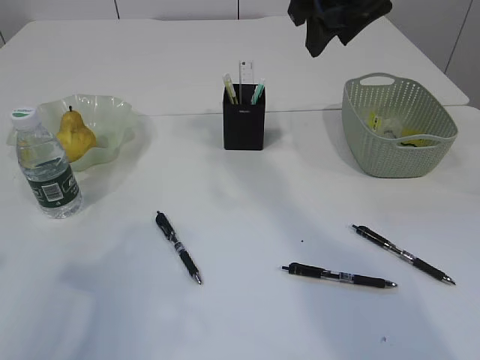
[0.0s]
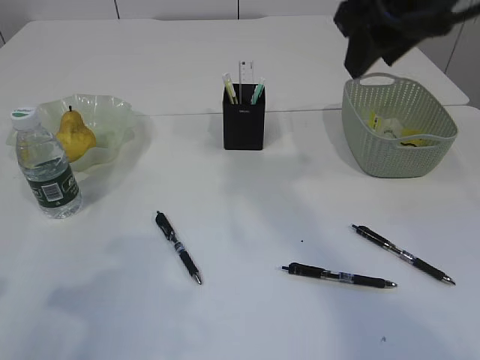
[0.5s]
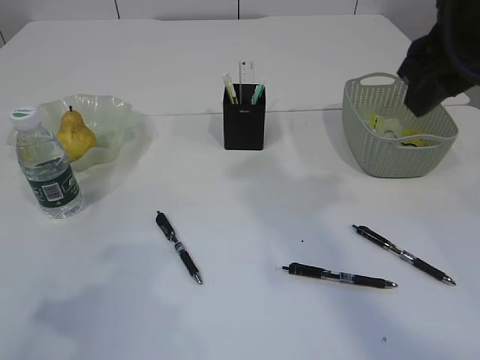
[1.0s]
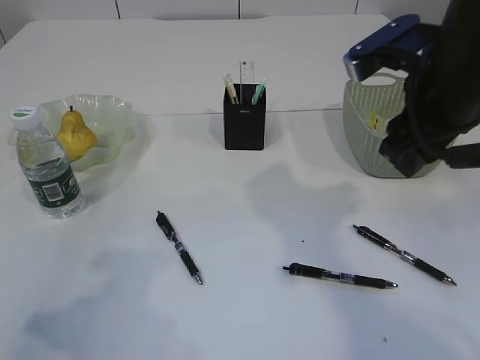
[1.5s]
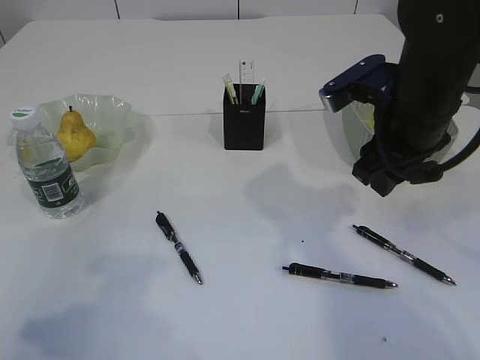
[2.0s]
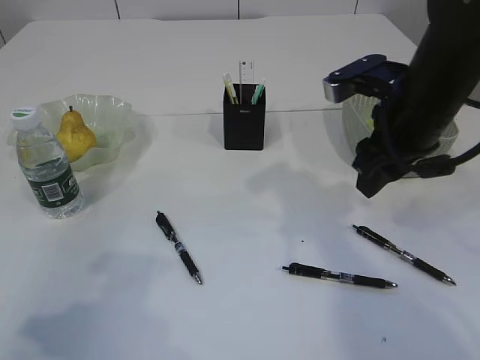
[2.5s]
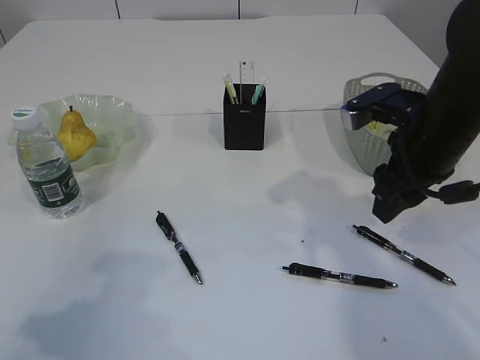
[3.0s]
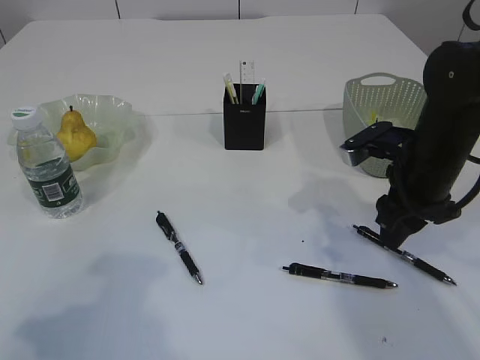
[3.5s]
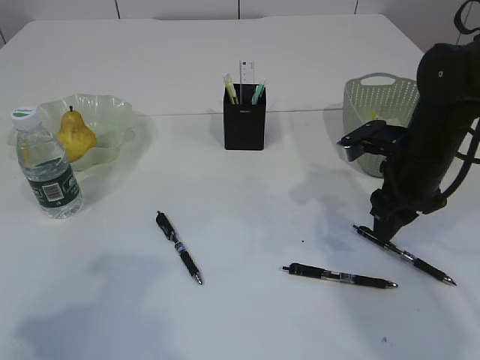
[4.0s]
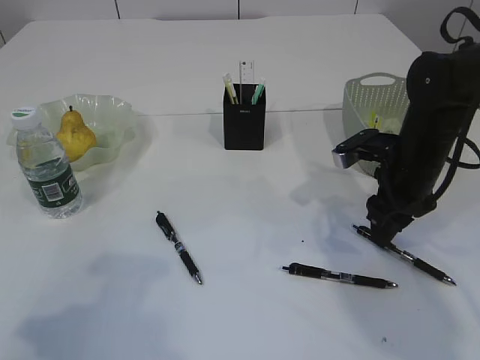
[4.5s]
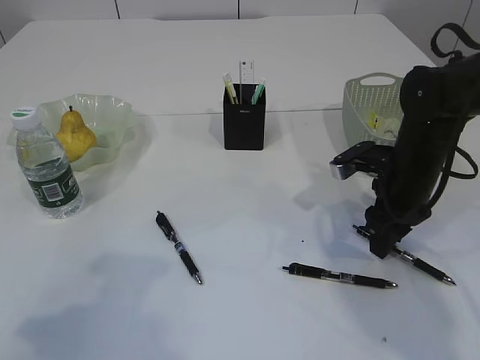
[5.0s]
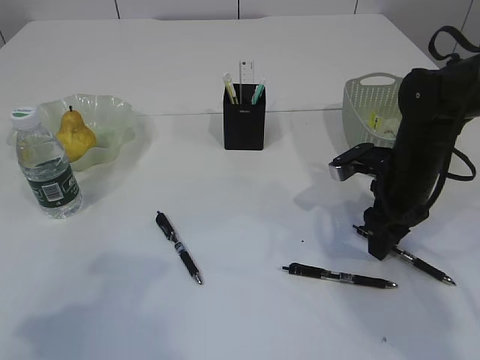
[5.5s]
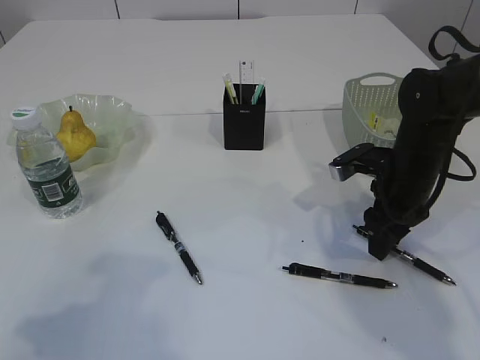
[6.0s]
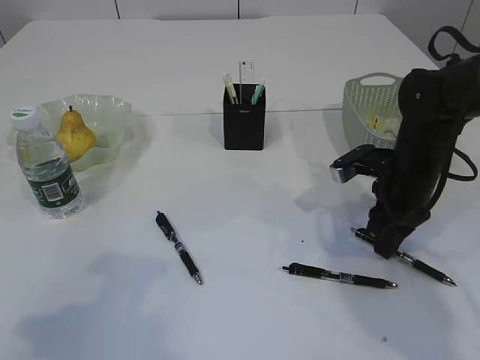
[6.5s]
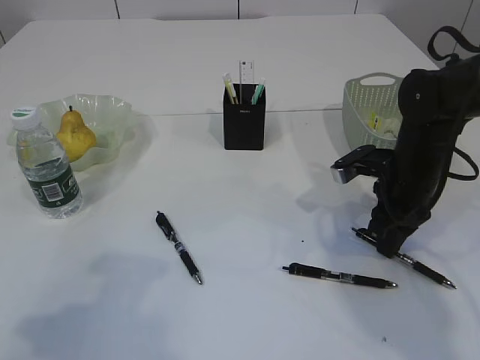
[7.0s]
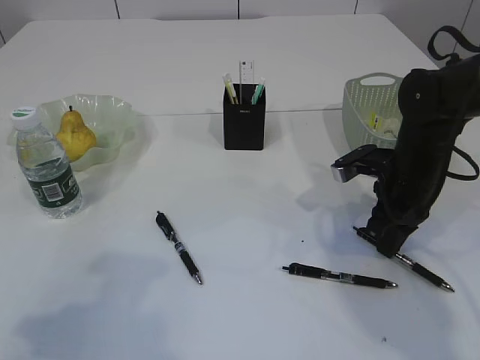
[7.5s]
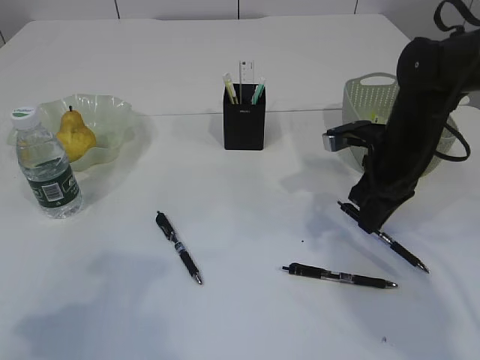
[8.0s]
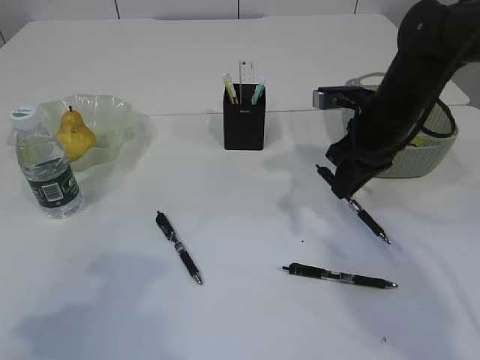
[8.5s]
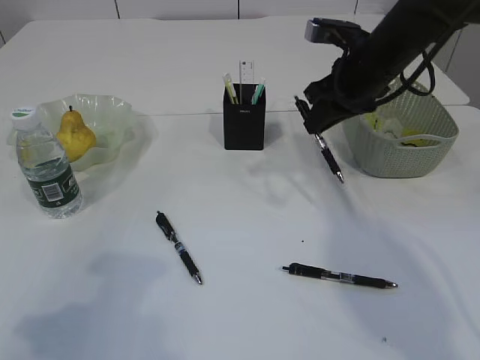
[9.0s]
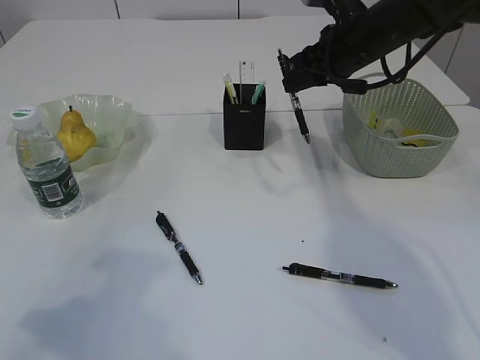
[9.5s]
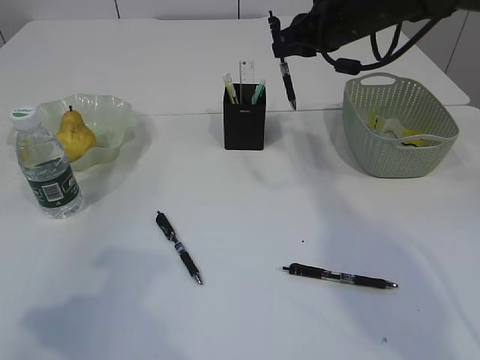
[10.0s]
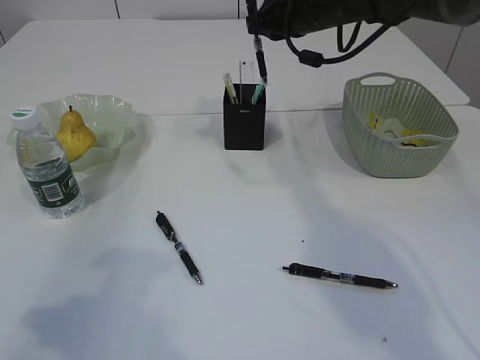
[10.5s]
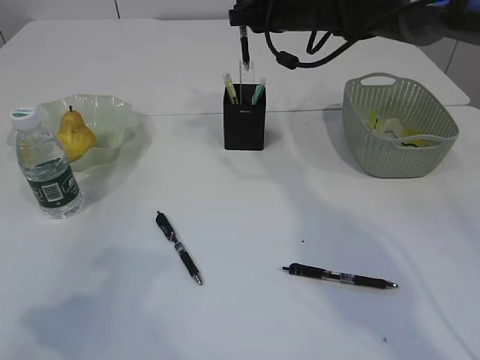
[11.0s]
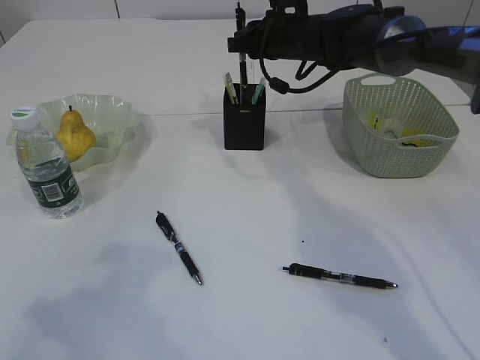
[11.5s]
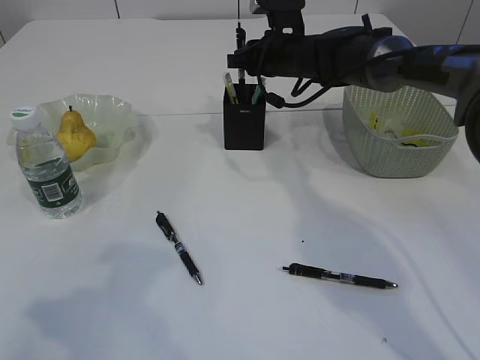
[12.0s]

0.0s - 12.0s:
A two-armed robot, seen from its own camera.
Step, 0.0s - 7.5s: Pick up the pen with right arm.
0.0s - 2.0s: The right gripper moves downward and backward, some 15 cm.
2.0s - 4.0s: The right gripper travels downward by roughly 10 cm.
4.0s - 6.0s: There are only small adjustments of the grippers.
6.0s - 8.0s: The right gripper closes.
8.0s - 10.0s: The right gripper moves upward and forward, roughly 15 cm.
10.0s - 12.0s: The right gripper goes roughly 10 cm downward, forward and to the left.

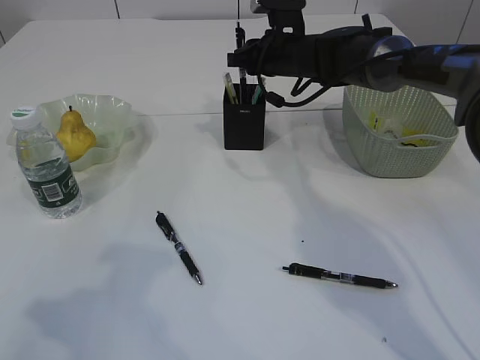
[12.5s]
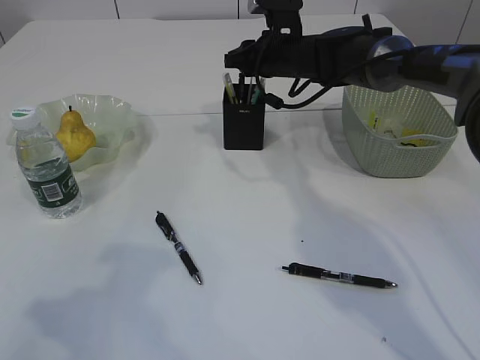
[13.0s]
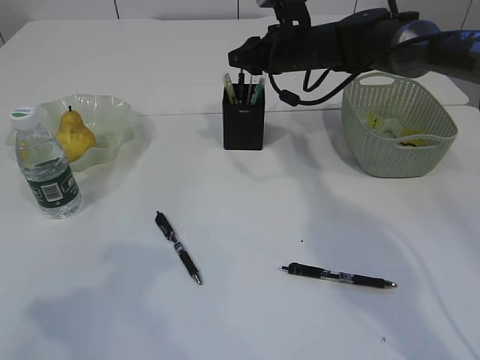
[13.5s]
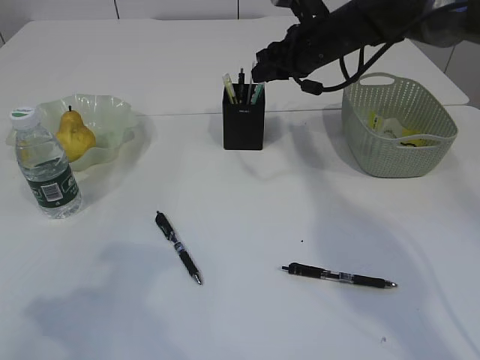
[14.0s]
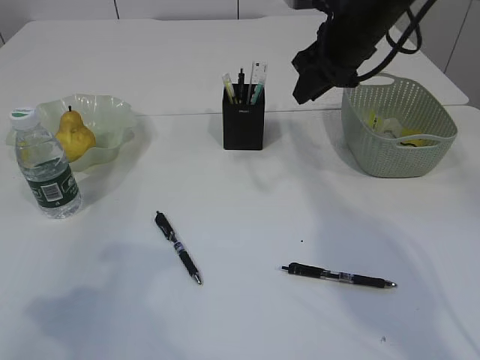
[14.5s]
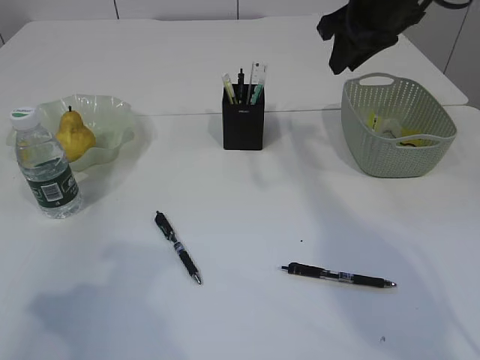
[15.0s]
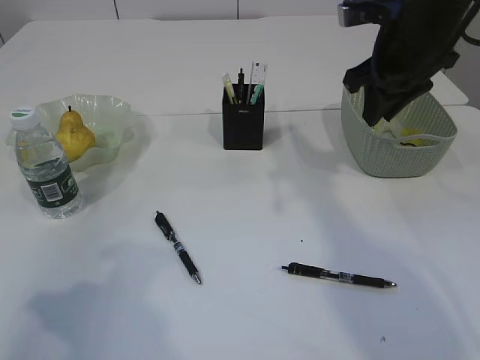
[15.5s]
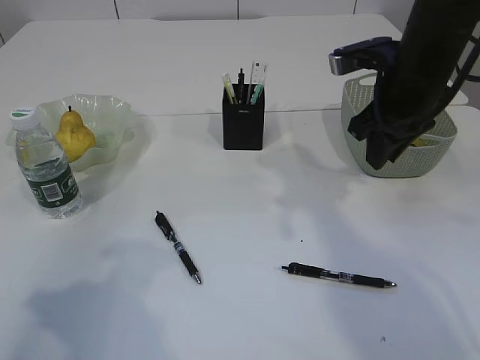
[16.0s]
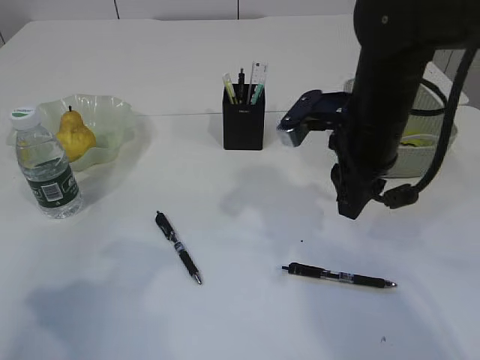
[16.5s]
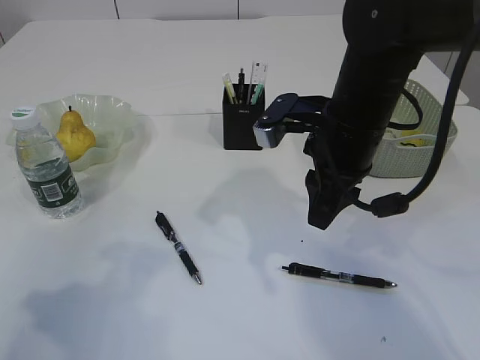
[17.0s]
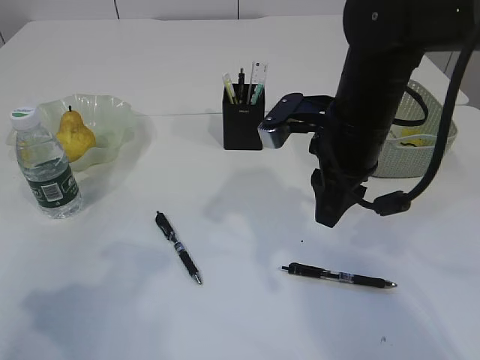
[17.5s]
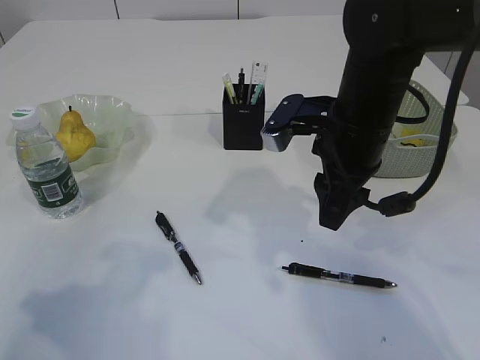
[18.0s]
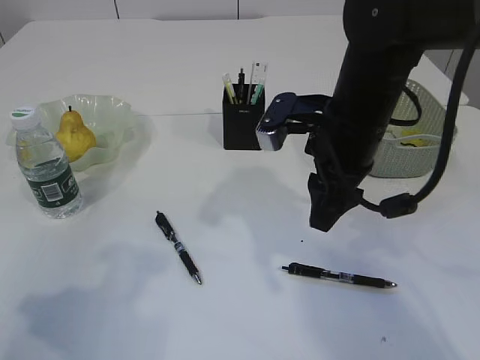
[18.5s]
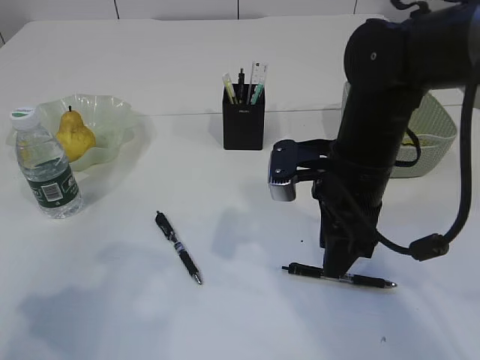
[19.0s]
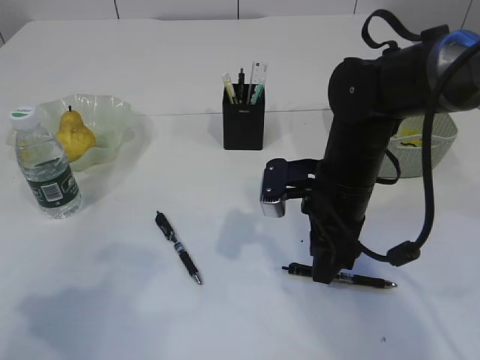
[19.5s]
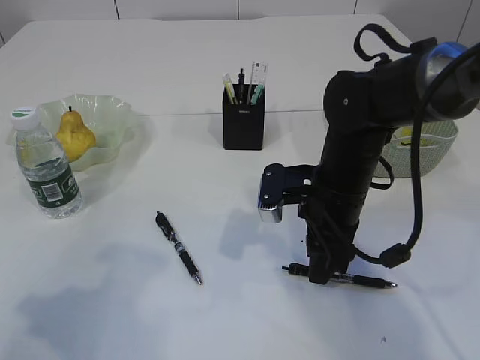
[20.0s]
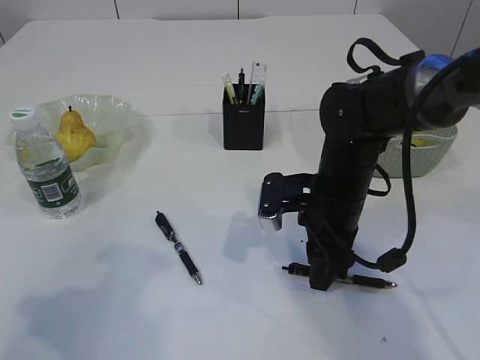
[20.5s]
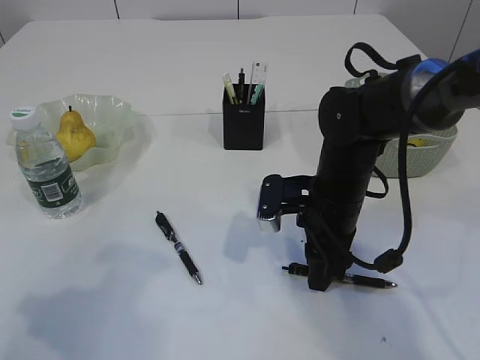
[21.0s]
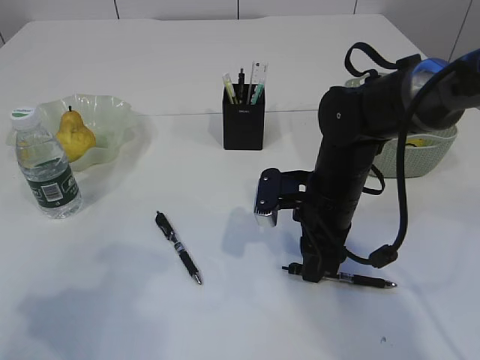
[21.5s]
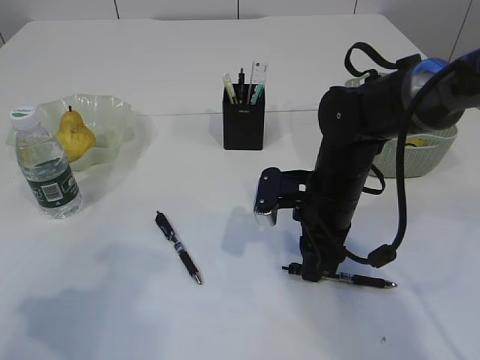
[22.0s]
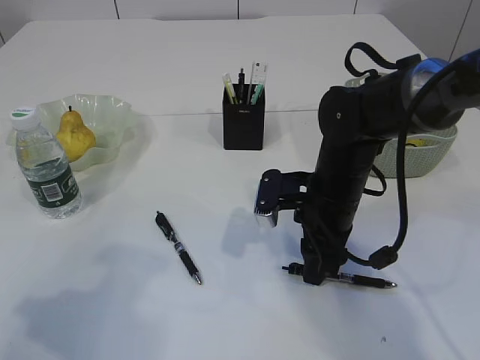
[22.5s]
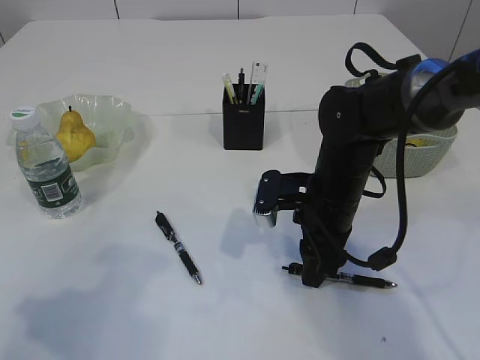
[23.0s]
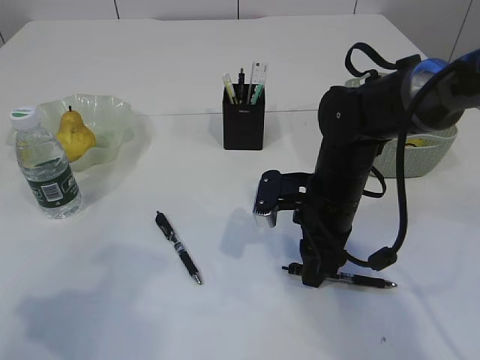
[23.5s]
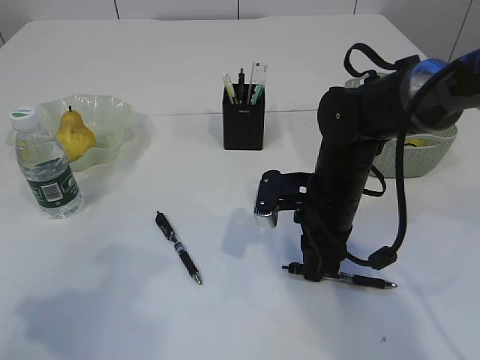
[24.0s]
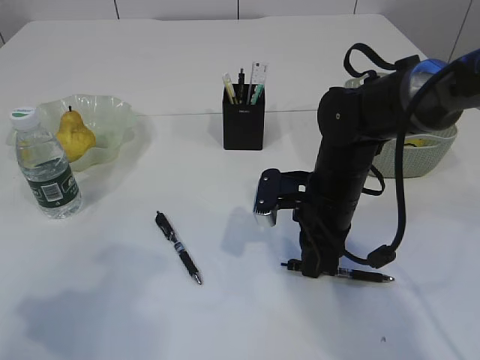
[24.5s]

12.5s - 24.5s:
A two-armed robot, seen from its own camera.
12.5s - 14.5s: The right gripper travels backward, upward and to the right by some 10 cm.
14.5s - 16.5s: The right gripper heads backward, covering approximately 10 cm.
16.5s - 18.5s: The right gripper opens its fingers.
18.5s - 20.5s: The right gripper is displaced downward by roughly 10 cm.
20.5s - 22.5s: The two grippers keep their place.
22.5s - 24.5s: The right gripper closes.

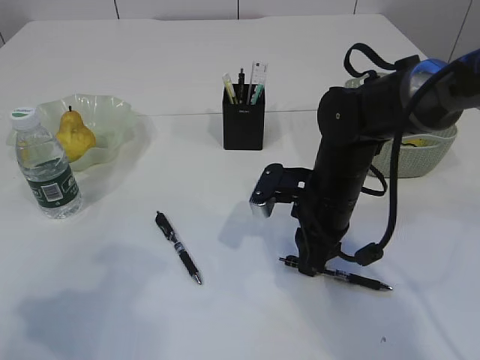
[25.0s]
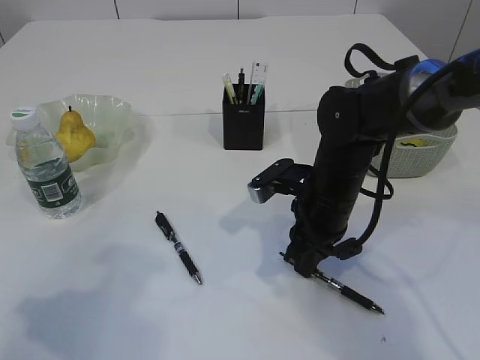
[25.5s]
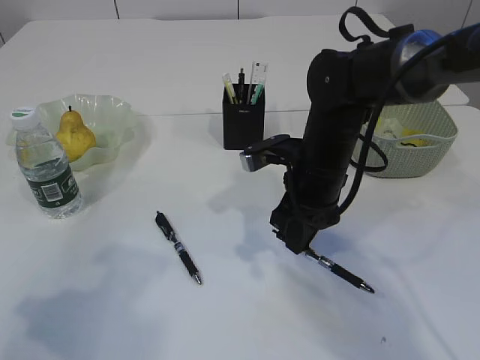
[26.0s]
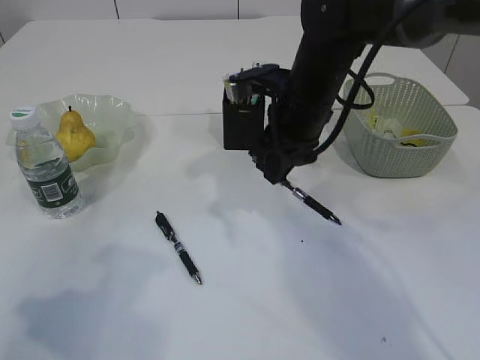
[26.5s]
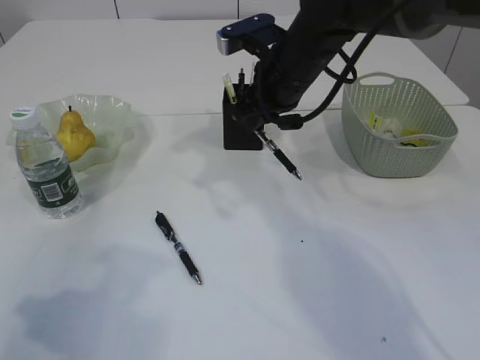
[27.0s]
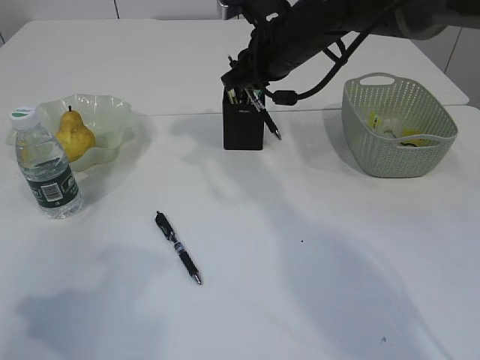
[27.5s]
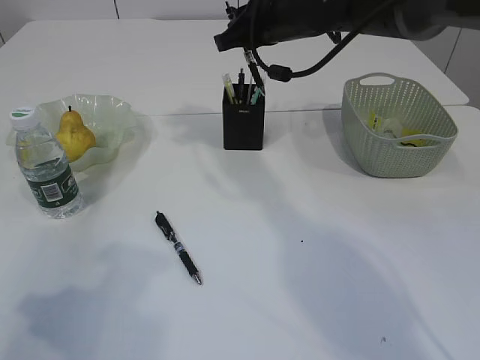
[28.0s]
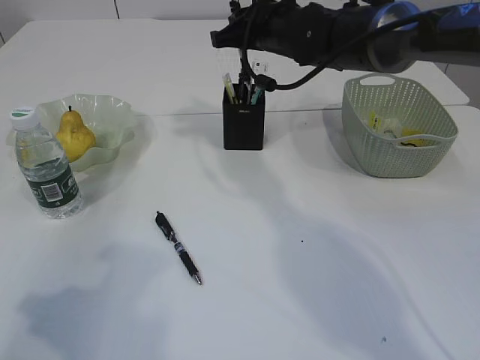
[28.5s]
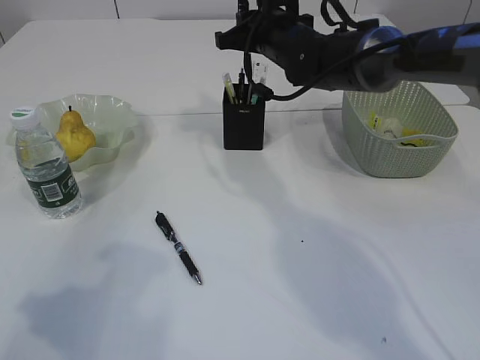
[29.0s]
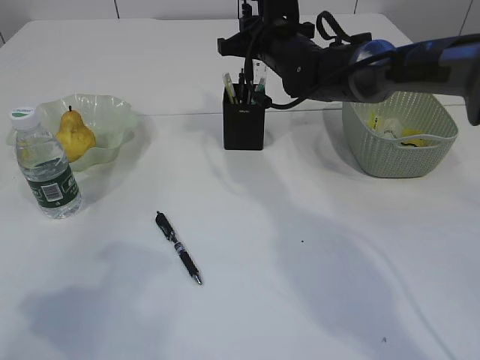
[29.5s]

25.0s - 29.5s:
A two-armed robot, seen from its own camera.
25.0s - 27.0s: The right gripper shifts about 15 cm upward and forward.
27.0s - 29.5s: The right gripper travels forward by roughly 10 cm.
